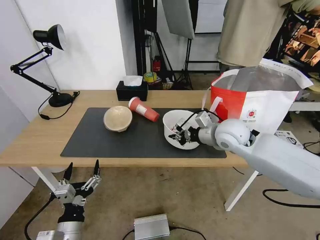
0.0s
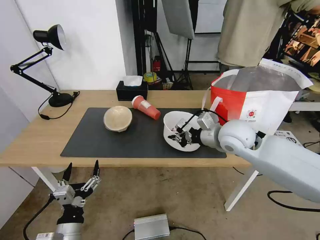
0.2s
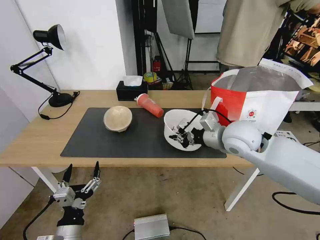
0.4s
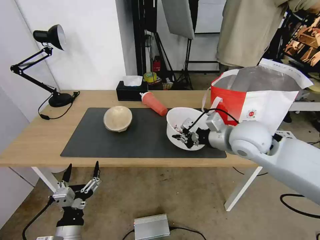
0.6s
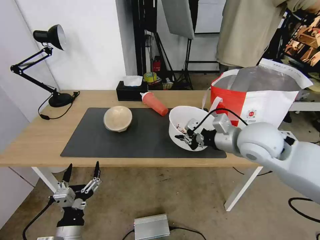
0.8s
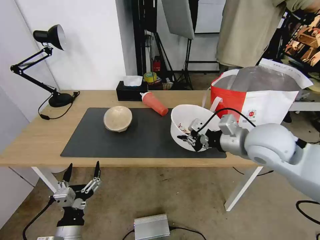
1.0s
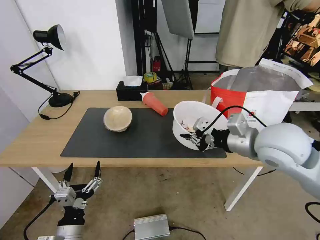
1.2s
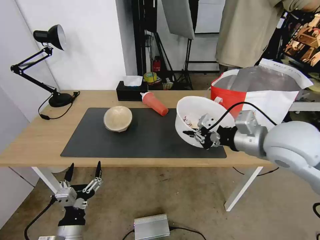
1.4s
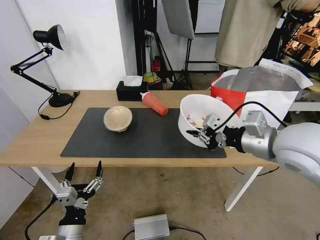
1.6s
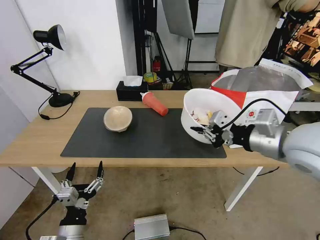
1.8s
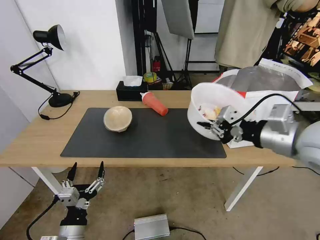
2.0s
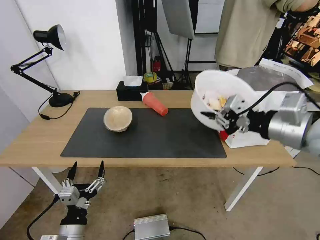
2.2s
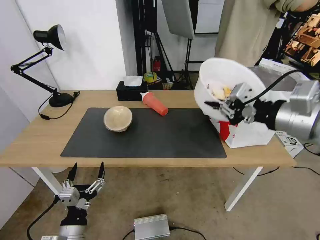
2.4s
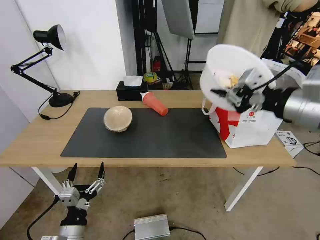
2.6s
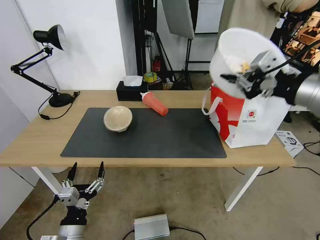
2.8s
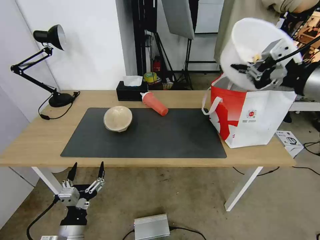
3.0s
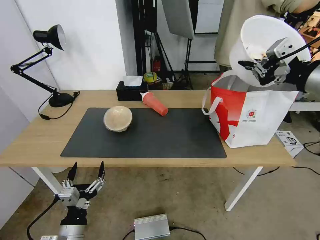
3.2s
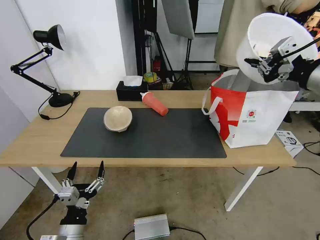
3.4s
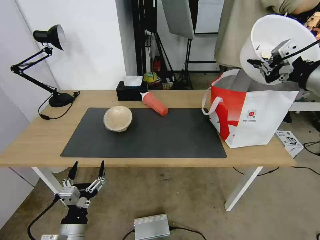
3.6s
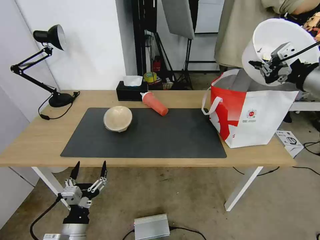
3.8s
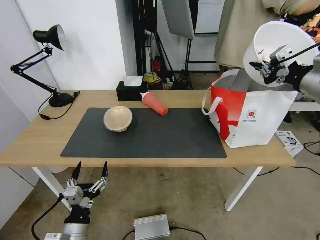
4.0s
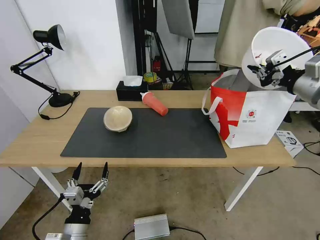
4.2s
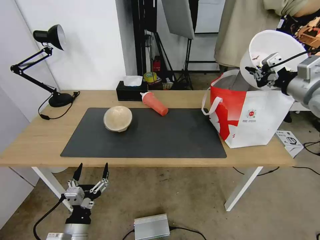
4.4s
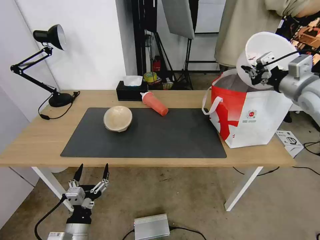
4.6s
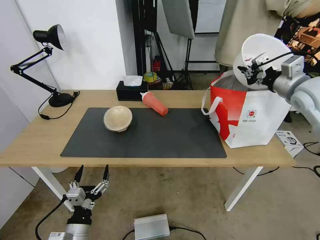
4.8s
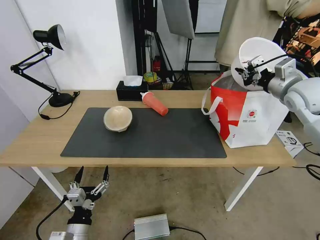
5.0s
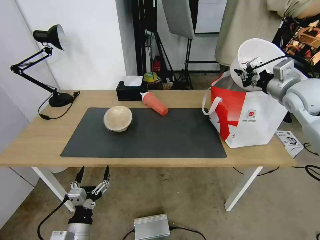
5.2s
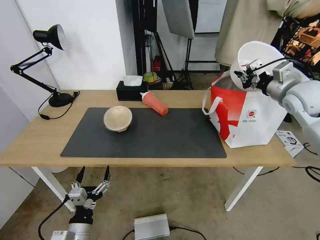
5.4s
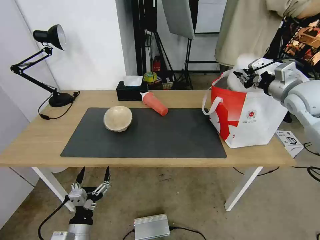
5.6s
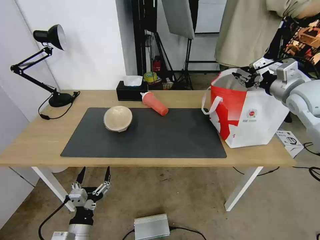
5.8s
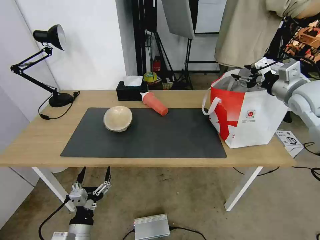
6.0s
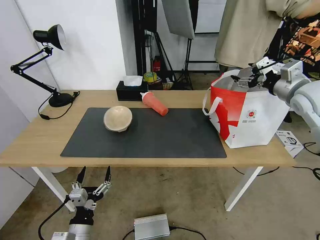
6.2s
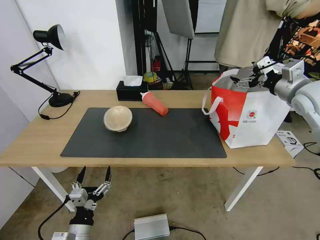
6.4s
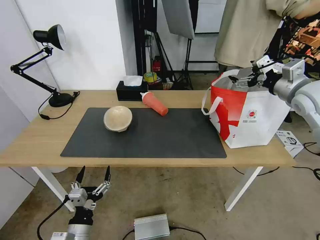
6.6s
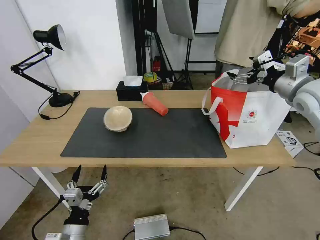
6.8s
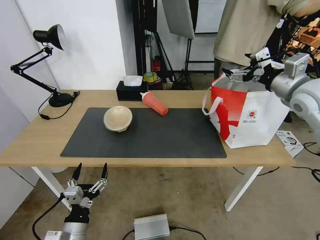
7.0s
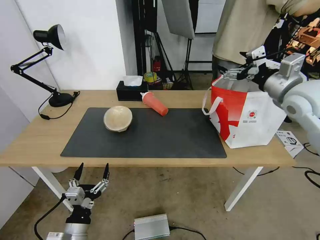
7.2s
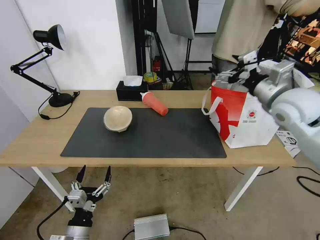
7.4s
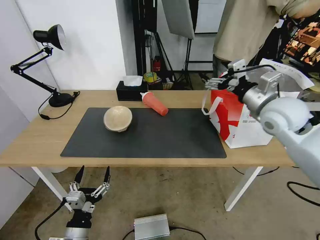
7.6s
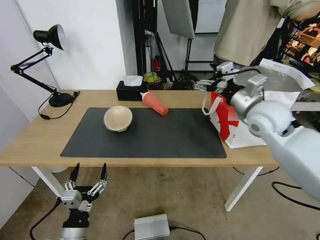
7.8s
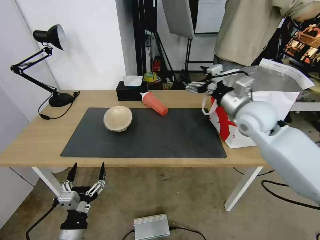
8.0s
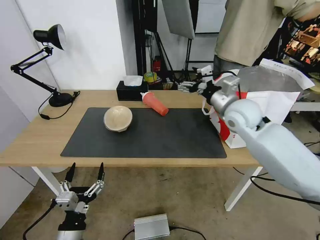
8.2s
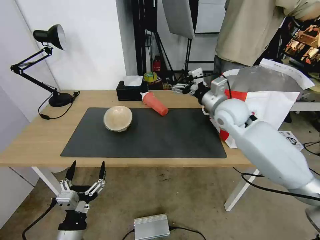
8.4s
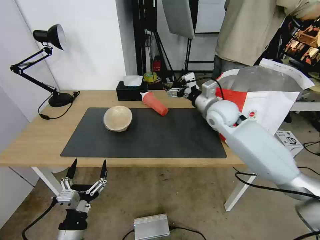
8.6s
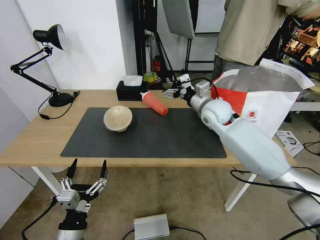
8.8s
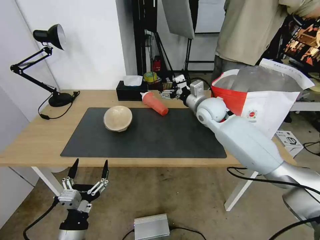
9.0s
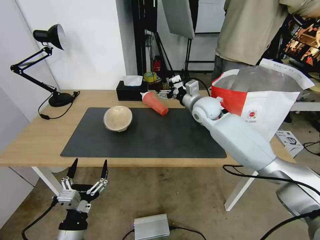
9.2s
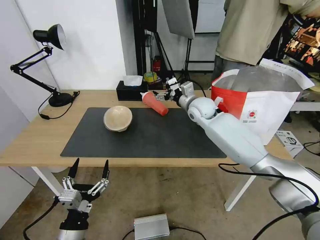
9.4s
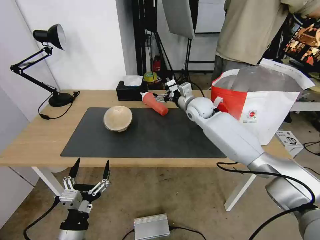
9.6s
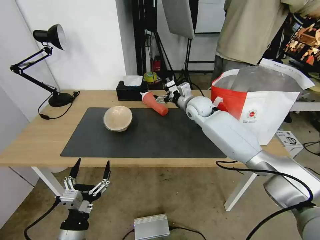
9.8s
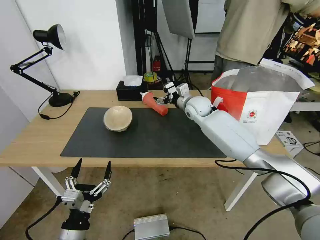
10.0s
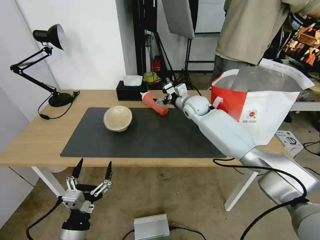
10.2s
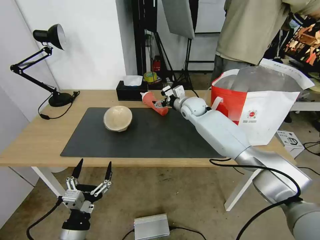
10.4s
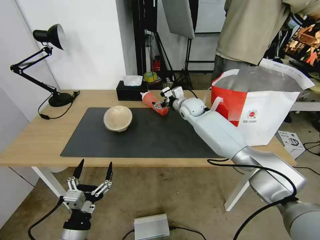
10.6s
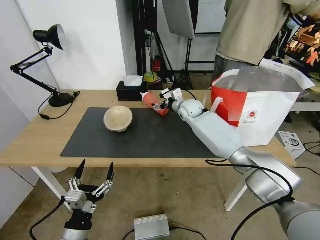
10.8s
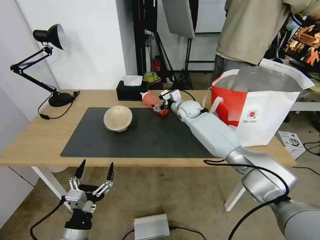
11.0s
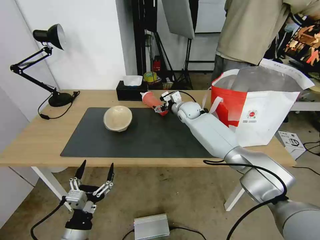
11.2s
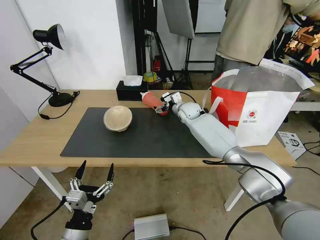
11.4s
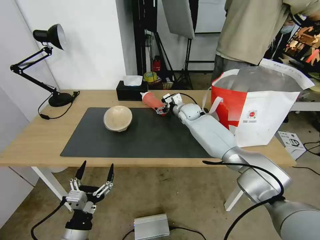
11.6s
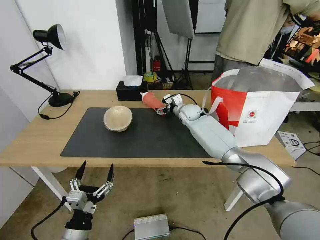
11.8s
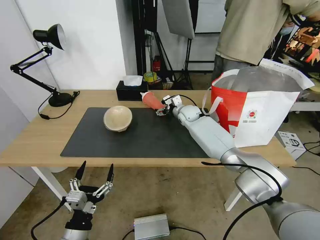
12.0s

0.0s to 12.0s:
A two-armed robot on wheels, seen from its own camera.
Task of the whole recording: Pick up the trash from the table and place it into the takeout bag.
0.0s to 1.6s: The right gripper goes some 20 cm backward, upward and to the right.
1.6s to 3.0s: The right gripper moves upward and to the right, about 15 cm.
3.0s to 4.4s: The right gripper shifts about 15 cm forward, downward and to the right.
4.4s to 6.0s: The right gripper changes place by approximately 5 cm, and opens.
6.0s to 7.6s: The right gripper heads to the left, covering roughly 10 cm, and opens up.
7.6s to 9.0s: The right gripper shifts about 20 cm to the left, forward and downward. The left gripper ends up about 5 cm from where it was.
9.0s to 10.4s: The right gripper shifts approximately 5 cm forward.
10.4s to 12.0s: The right gripper goes approximately 5 cm downward.

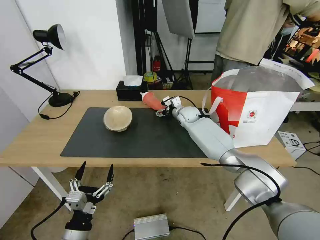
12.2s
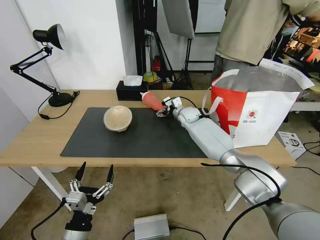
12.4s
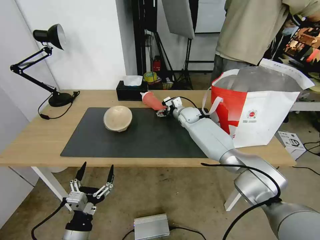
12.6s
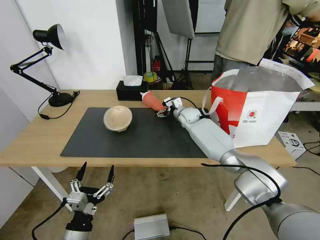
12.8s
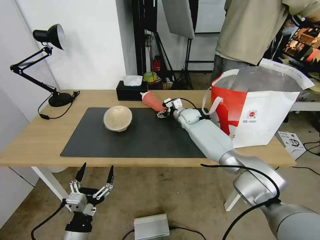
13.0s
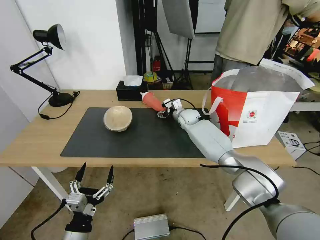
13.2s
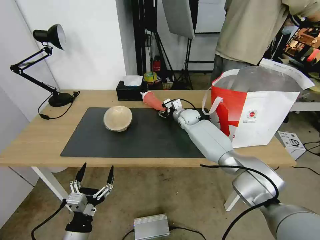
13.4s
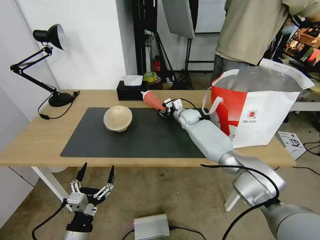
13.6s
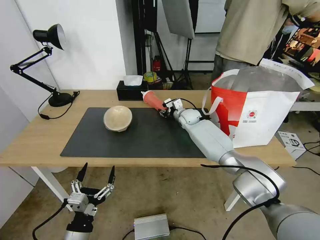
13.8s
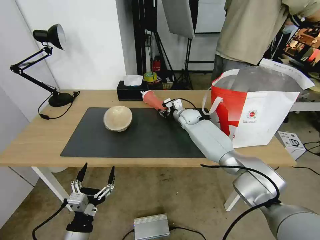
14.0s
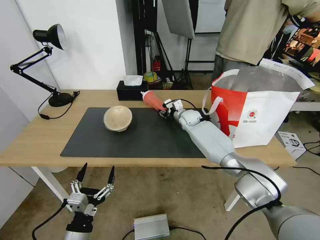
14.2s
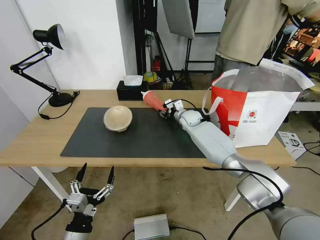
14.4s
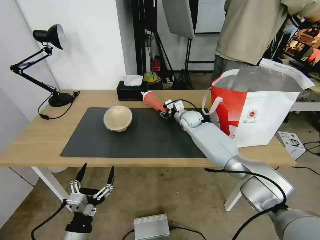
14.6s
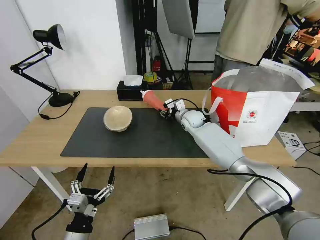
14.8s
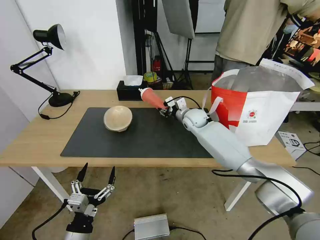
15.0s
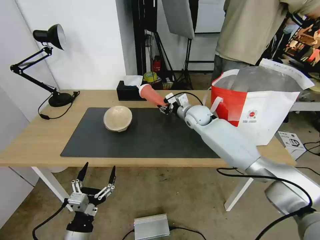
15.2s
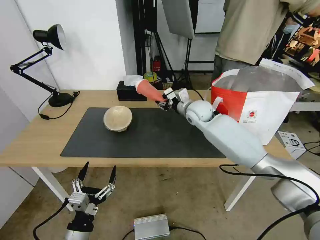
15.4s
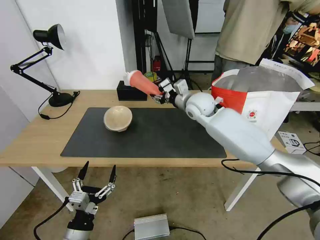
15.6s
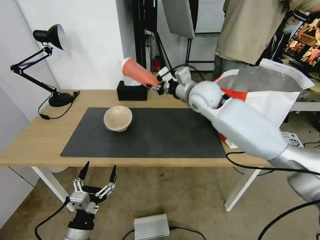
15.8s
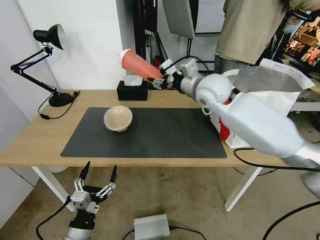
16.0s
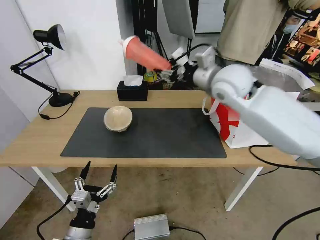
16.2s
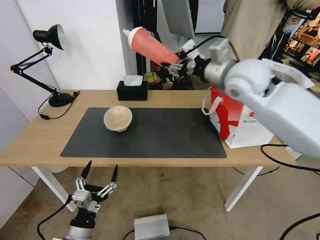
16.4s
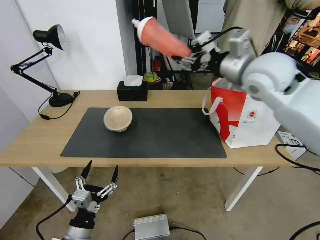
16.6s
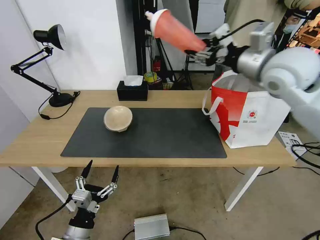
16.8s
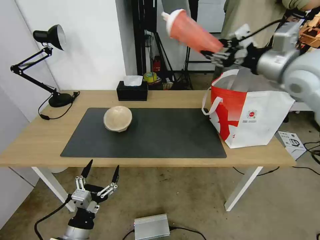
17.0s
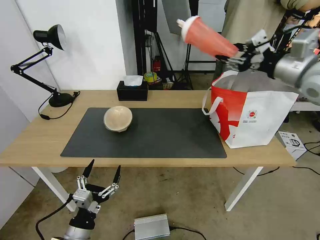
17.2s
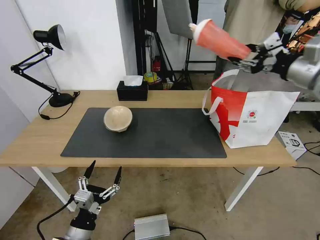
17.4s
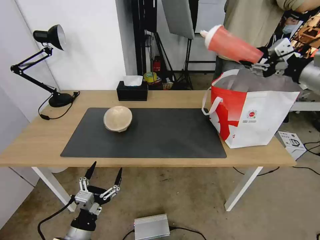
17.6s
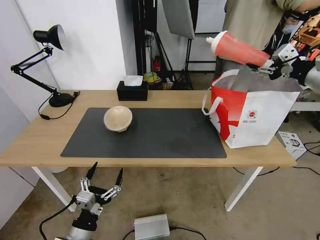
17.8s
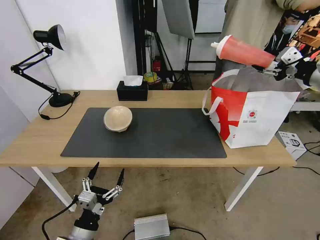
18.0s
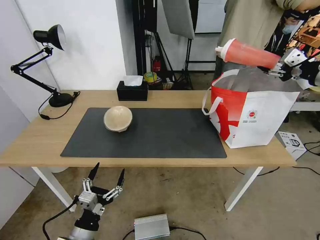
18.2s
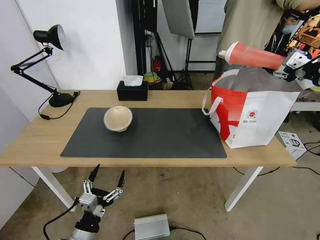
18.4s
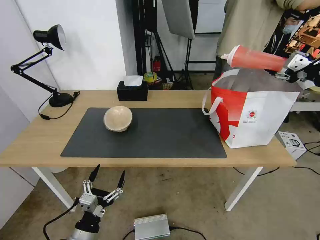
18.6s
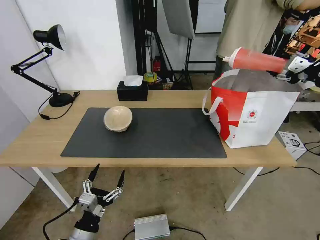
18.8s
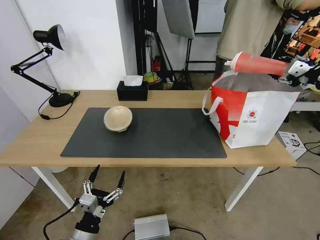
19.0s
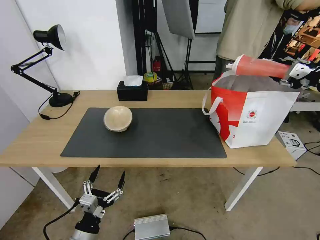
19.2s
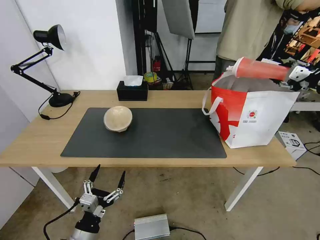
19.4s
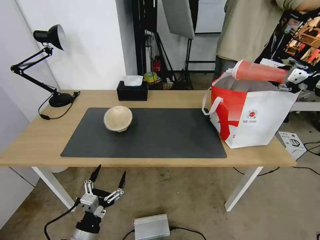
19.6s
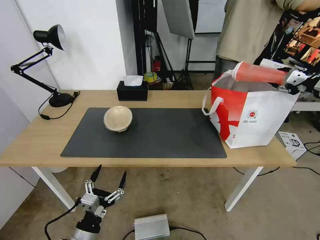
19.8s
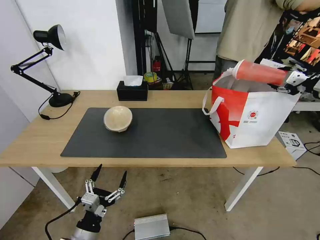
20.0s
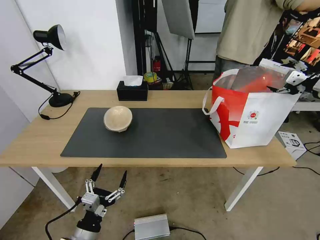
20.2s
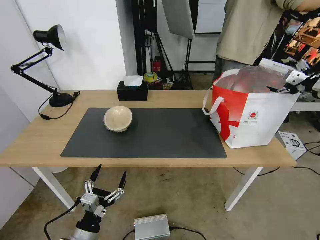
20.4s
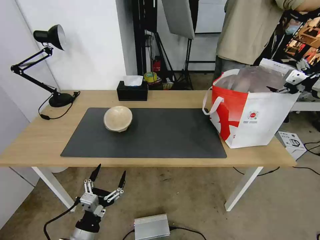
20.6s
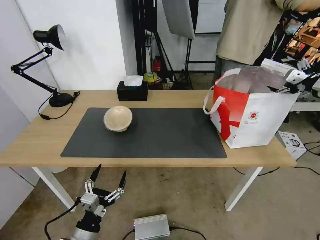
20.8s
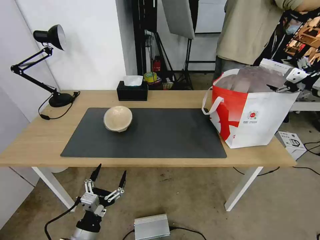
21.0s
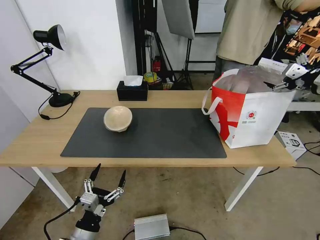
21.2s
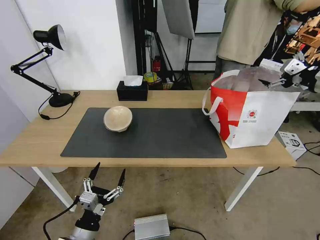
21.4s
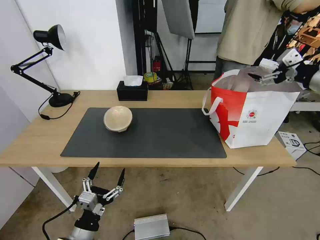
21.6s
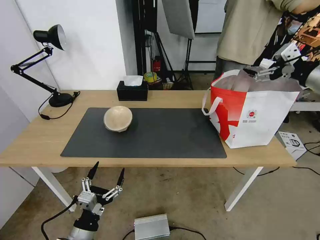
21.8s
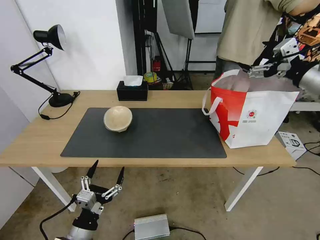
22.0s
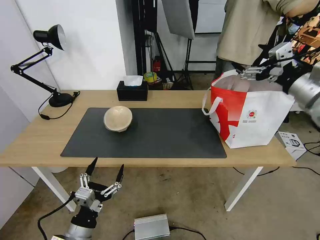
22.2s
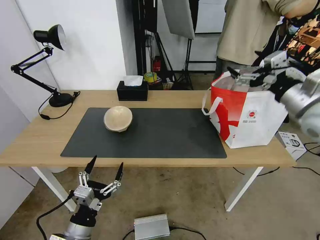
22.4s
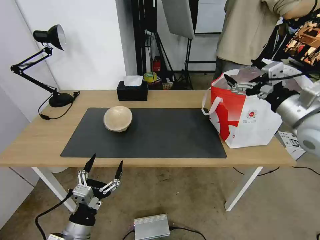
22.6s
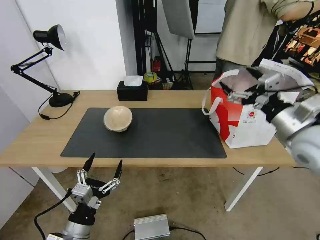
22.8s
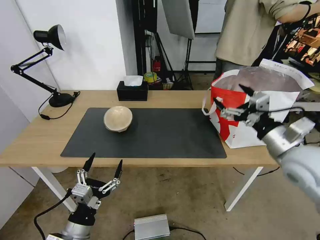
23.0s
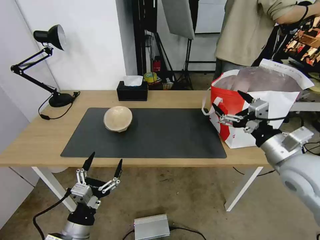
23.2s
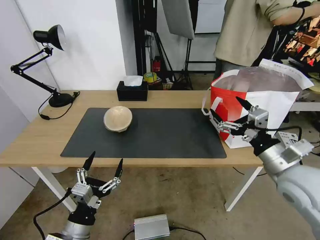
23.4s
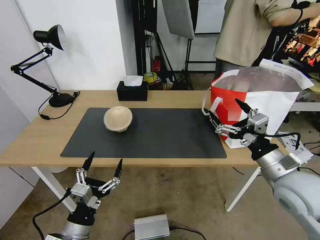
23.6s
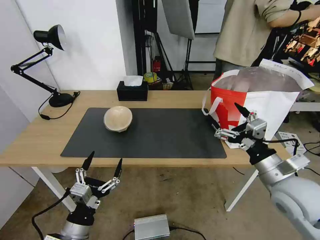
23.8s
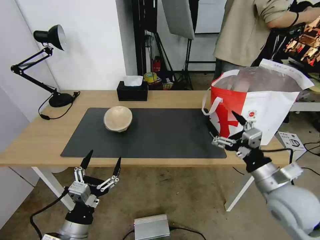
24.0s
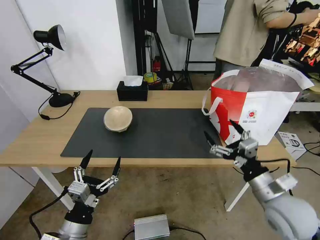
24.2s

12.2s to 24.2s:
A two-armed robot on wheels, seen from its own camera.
Task of the whole recording: Pick up the trash from the table and place it into the takeout bag.
12.2s to 13.8s: The right gripper closes.
13.8s to 15.2s: The right gripper shifts approximately 10 cm upward and backward.
15.2s to 16.6s: The right gripper heads upward and backward, covering approximately 25 cm.
16.6s to 18.2s: The right gripper shifts roughly 25 cm to the right.
18.2s to 19.8s: The right gripper shifts some 5 cm to the right.
19.8s to 21.2s: The right gripper opens up.
21.2s to 22.6s: The right gripper goes about 15 cm to the left and backward.
22.6s to 24.2s: The right gripper travels downward and backward by approximately 20 cm.
